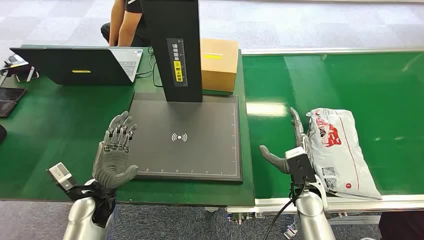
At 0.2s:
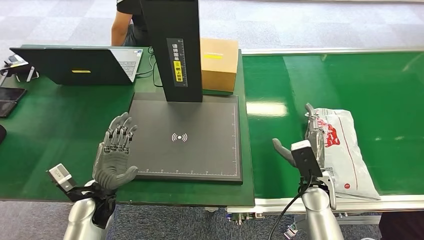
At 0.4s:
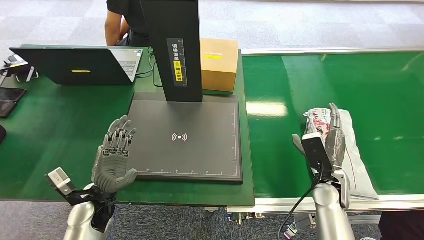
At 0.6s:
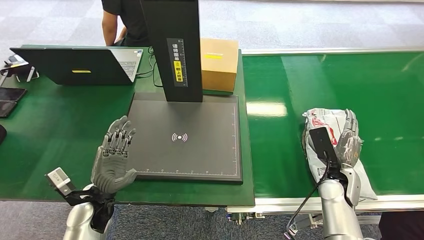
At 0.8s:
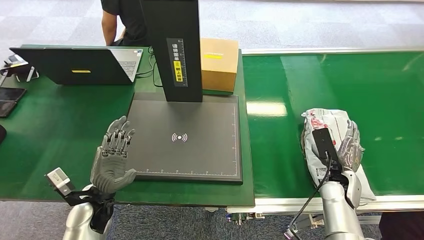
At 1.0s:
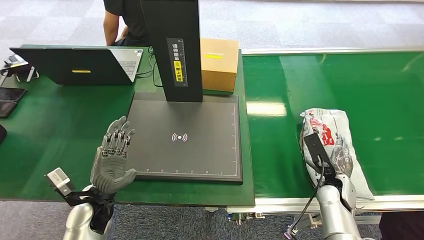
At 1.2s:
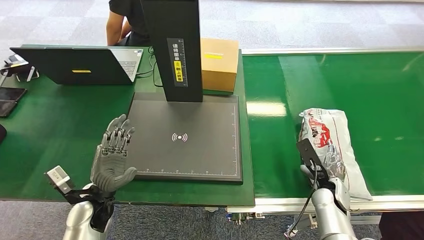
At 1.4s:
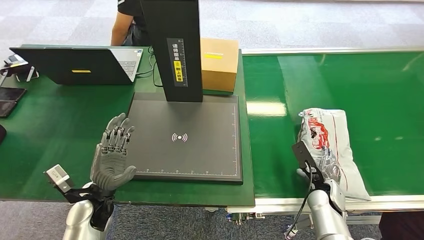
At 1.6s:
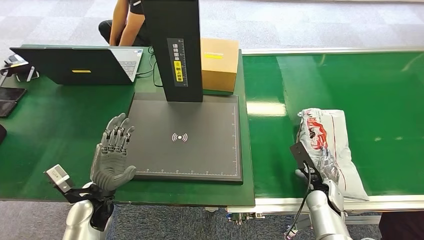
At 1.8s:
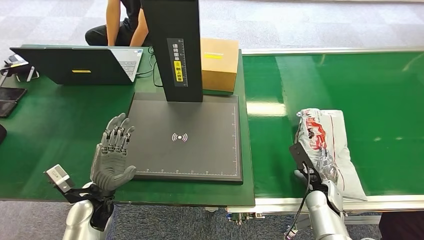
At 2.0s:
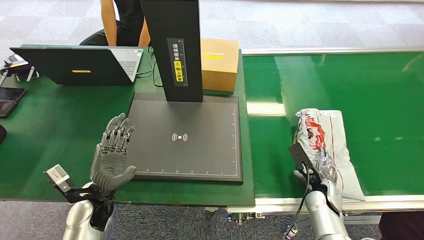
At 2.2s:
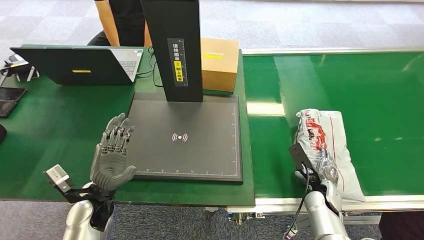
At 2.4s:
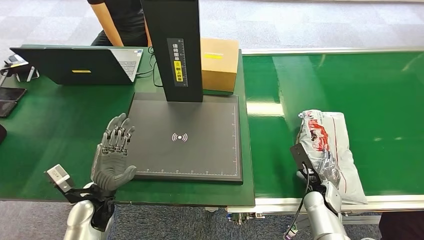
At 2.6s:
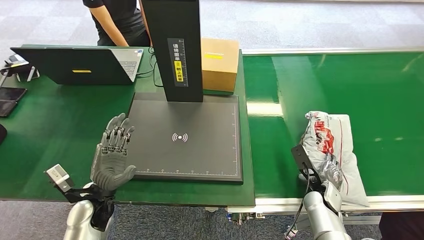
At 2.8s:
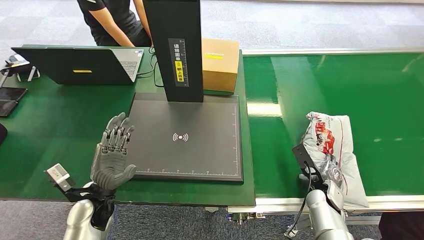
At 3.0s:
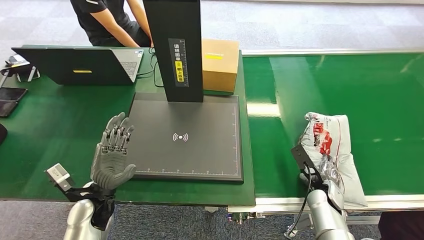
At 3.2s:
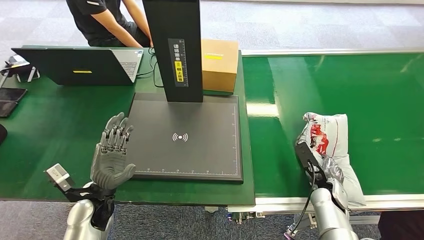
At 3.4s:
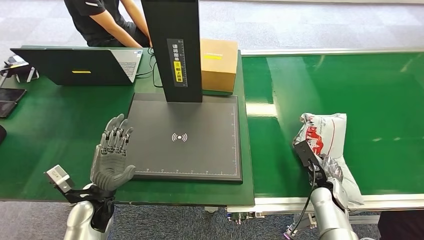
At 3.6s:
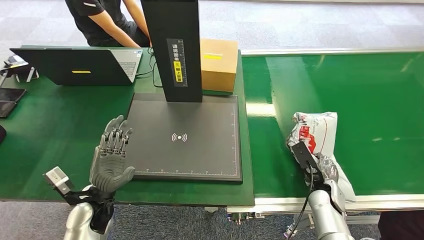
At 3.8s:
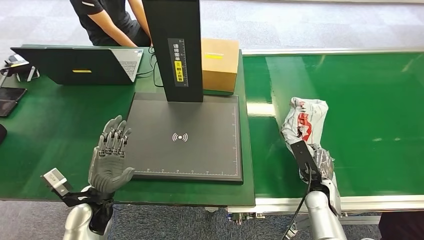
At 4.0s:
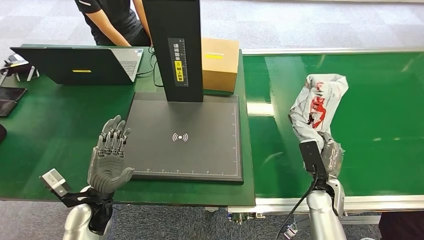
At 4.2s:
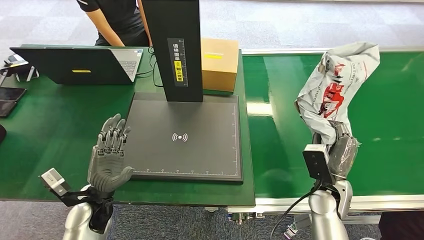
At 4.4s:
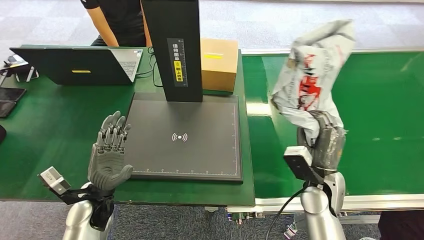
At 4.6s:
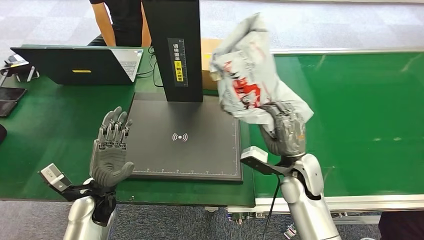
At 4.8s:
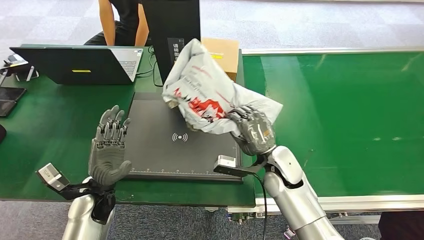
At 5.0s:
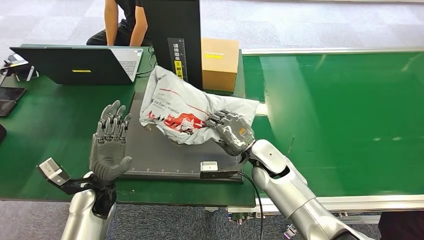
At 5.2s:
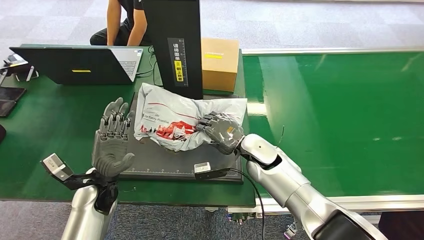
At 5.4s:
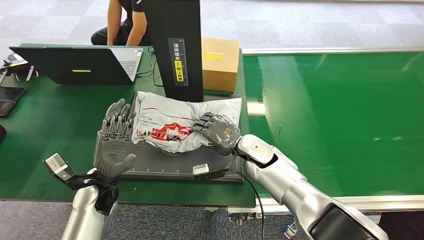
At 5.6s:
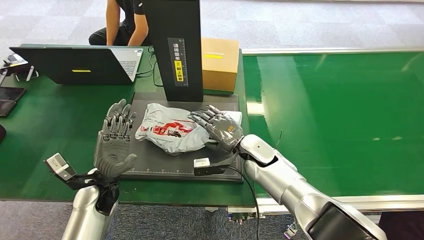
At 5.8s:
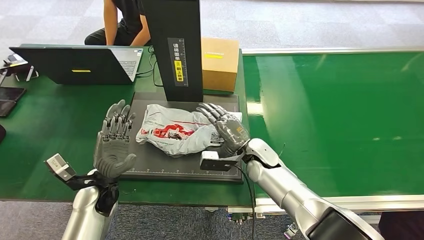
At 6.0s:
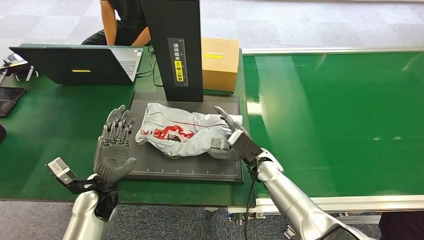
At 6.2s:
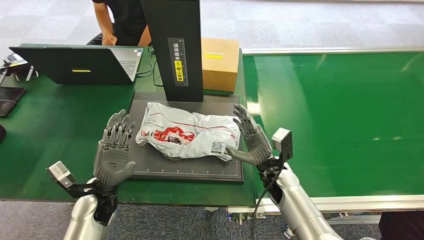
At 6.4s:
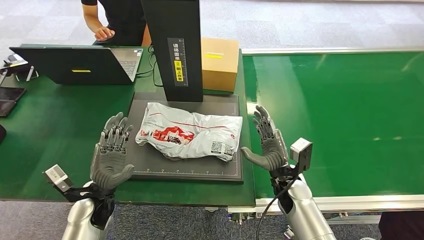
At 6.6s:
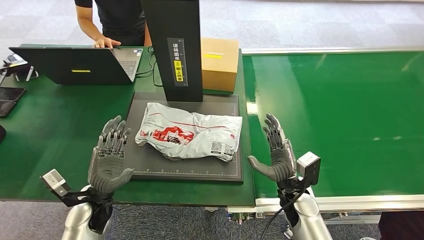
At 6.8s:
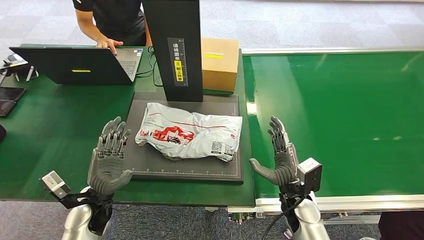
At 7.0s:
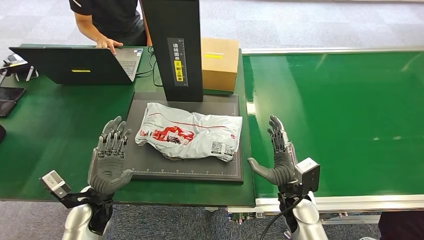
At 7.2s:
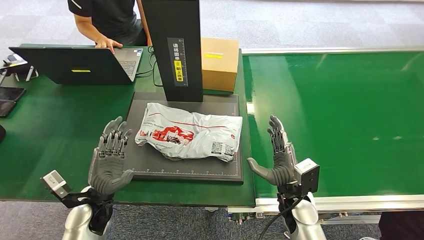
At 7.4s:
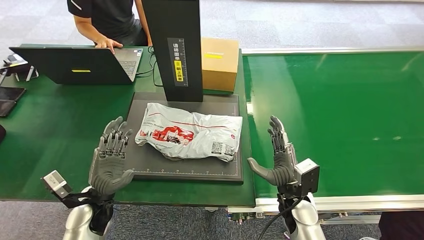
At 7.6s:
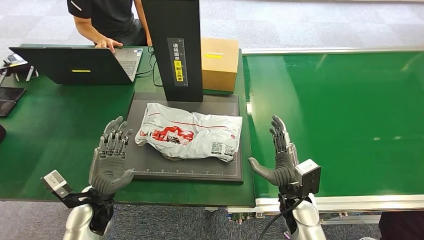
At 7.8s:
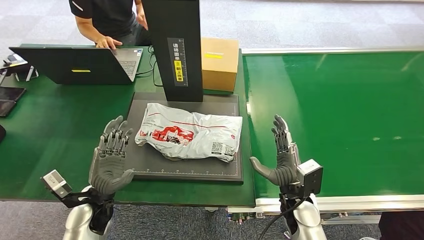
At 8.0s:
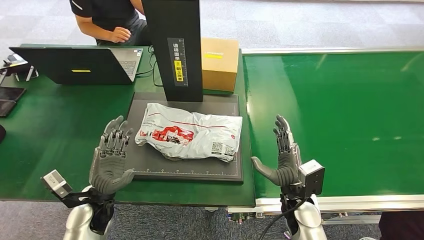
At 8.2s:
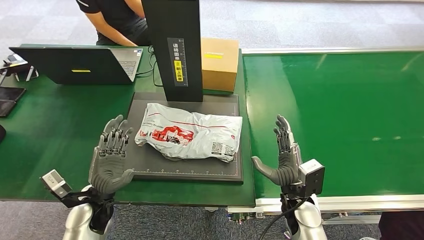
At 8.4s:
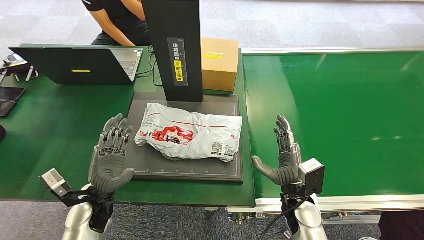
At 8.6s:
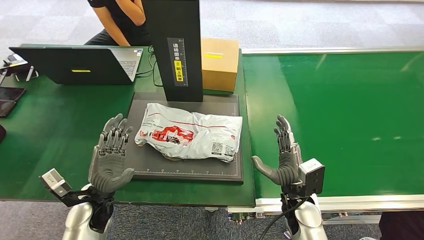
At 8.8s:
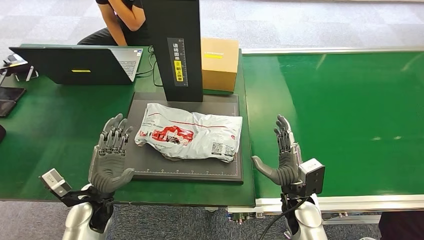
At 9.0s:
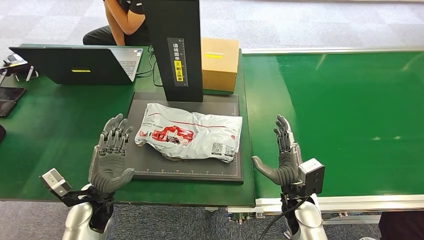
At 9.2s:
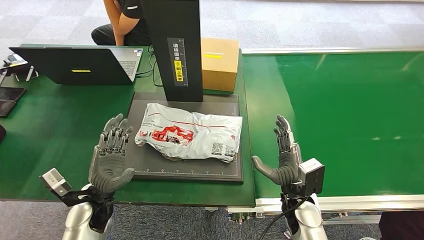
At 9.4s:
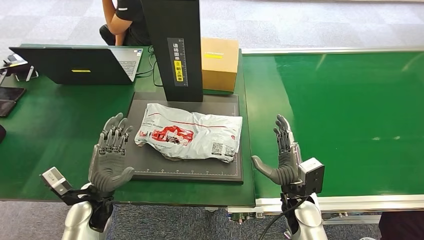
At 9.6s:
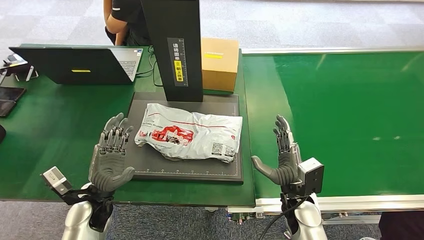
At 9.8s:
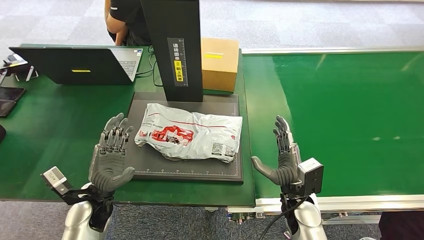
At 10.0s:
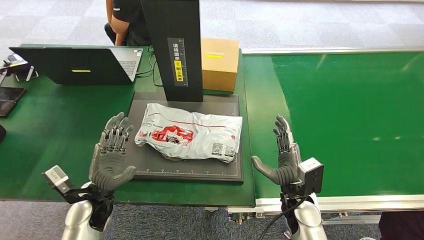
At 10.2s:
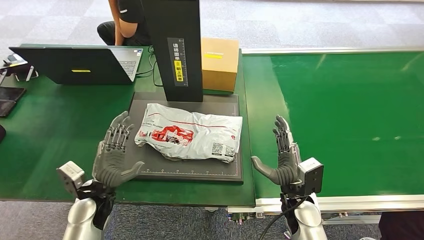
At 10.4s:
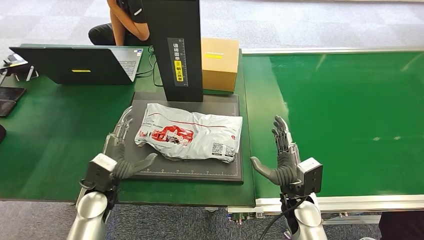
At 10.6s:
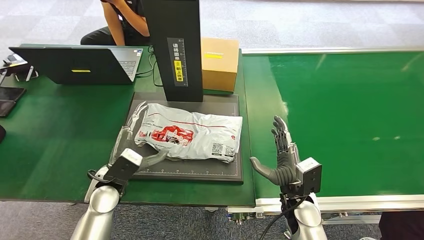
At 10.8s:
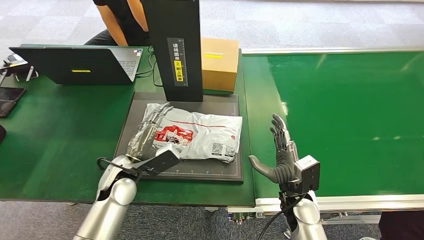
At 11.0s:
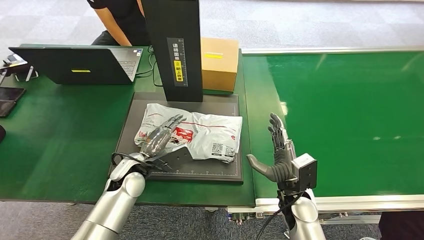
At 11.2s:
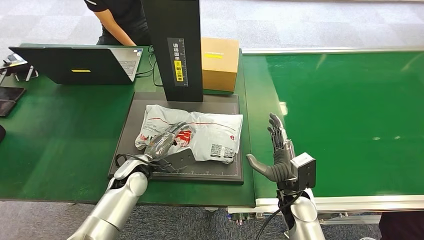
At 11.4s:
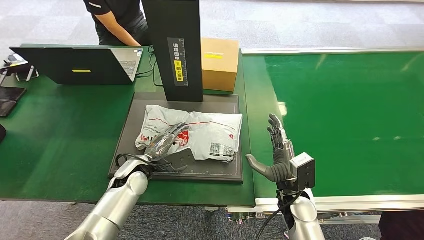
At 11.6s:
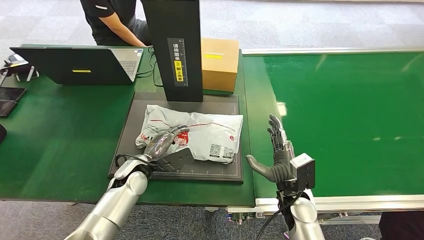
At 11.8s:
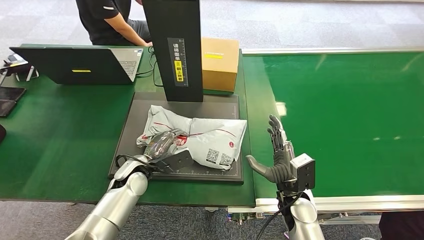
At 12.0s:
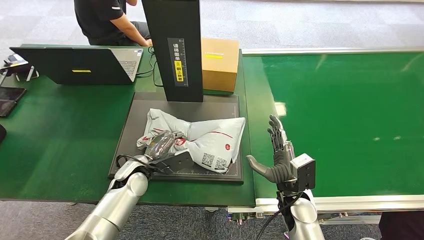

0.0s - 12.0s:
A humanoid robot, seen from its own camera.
Step, 0.0s - 4.2s: Pick up the package from the conveyor belt.
Step, 4.4s - 6.6s: Place the package onto the inbound machine.
1.6s - 3.0s: There are only small adjustments of the hands.
3.0s - 4.4s: The right hand shifts roughly 15 cm upward and to the left.
6.0s - 7.6s: The right hand heads backward and to the right, covering roughly 10 cm.
7.6s - 9.0s: Neither hand changes place.
10.4s - 12.0s: The left hand travels to the right and forward by about 10 cm.

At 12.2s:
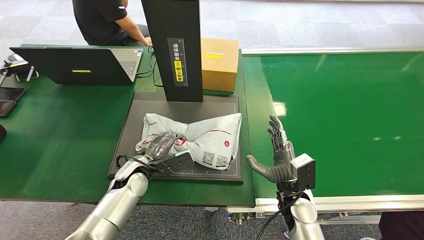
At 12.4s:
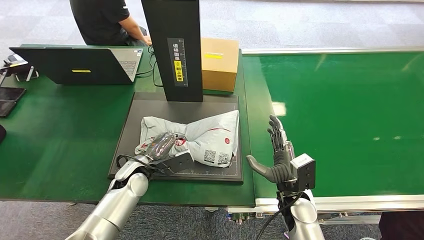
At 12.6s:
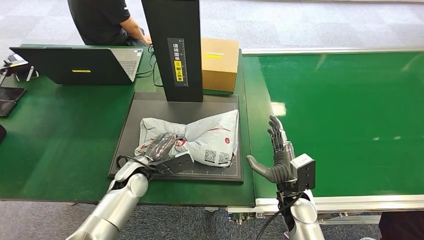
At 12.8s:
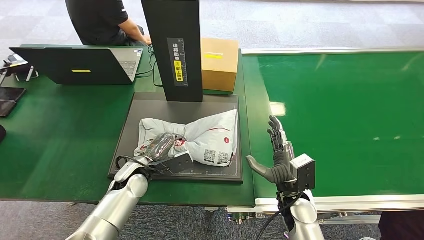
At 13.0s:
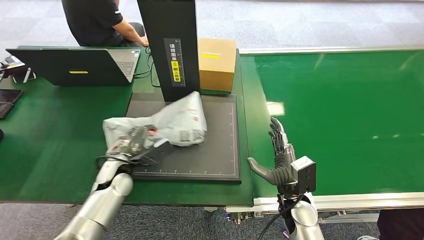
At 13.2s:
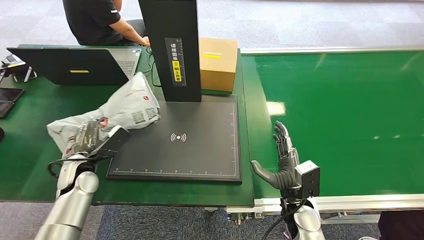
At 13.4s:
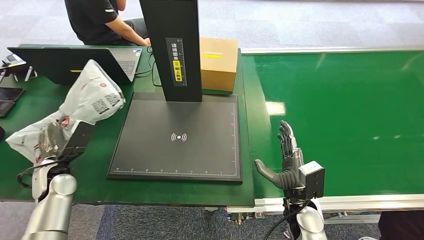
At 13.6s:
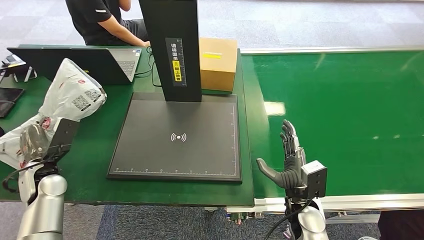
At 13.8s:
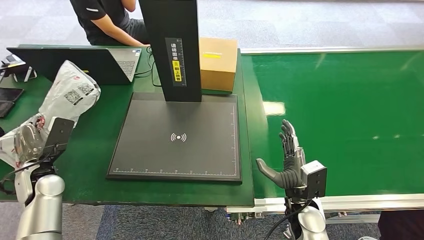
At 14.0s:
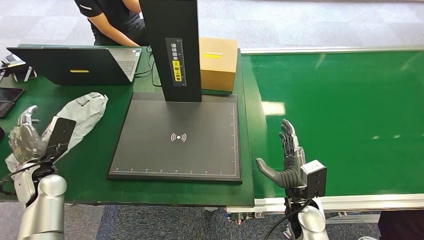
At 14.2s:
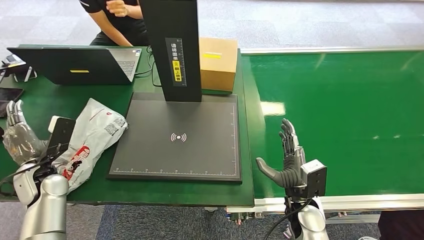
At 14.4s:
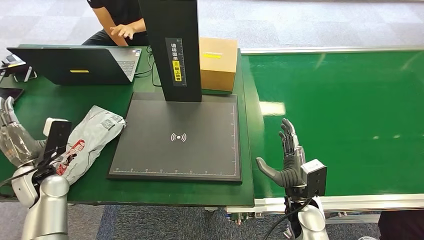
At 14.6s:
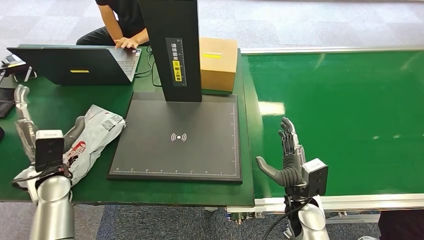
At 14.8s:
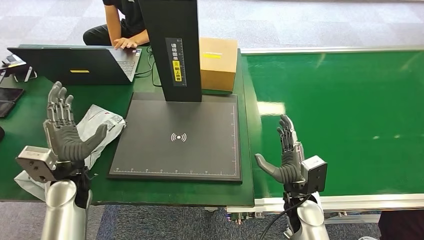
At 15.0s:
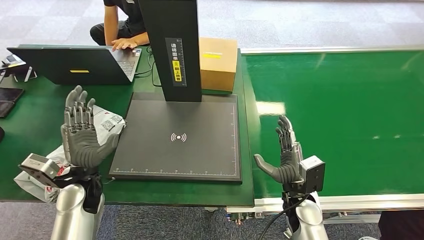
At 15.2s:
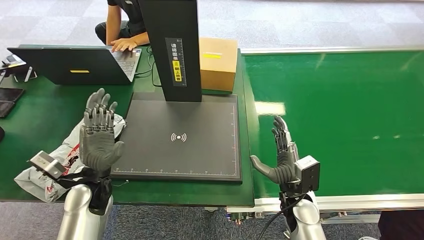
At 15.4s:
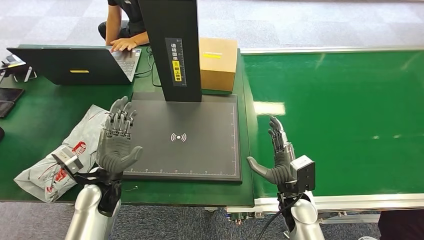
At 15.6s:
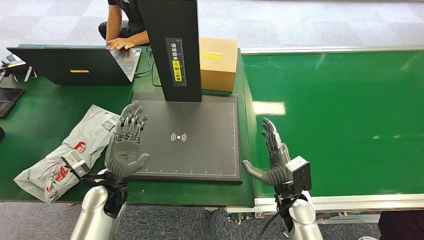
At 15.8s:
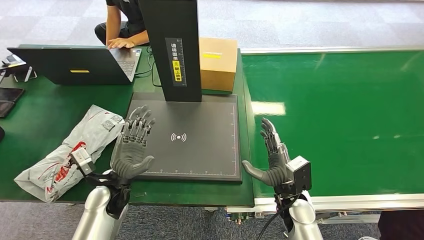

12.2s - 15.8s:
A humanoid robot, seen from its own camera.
Step, 13.4s - 15.8s: Place the package into the parcel locker.
14.0s - 15.8s: The left hand travels to the right by roughly 20 cm.

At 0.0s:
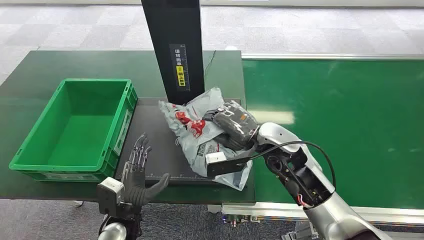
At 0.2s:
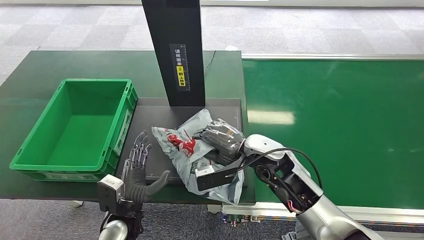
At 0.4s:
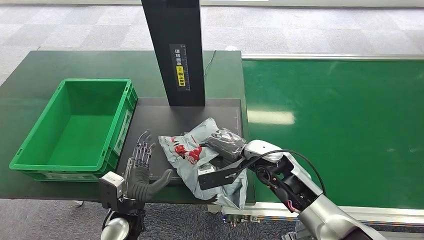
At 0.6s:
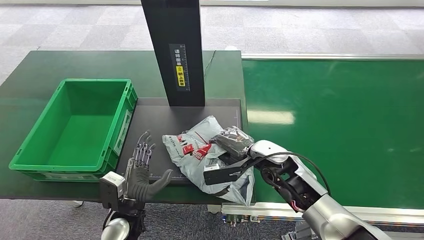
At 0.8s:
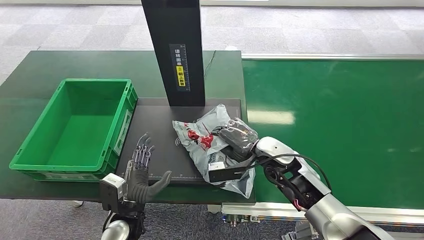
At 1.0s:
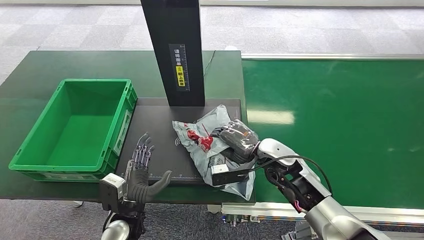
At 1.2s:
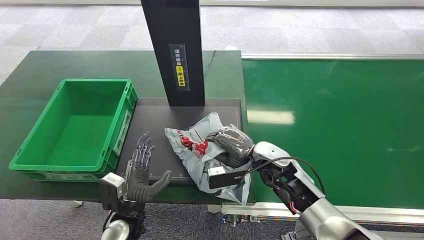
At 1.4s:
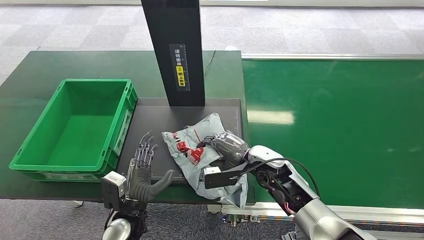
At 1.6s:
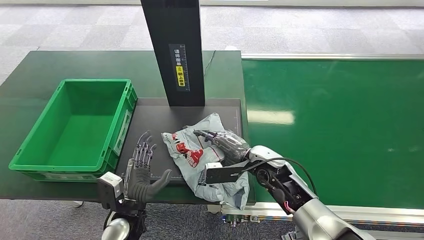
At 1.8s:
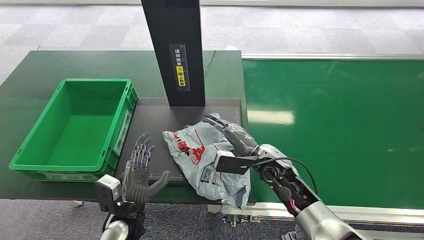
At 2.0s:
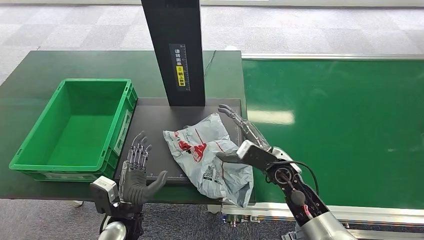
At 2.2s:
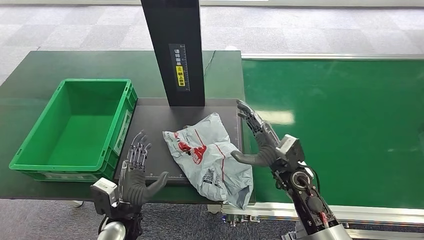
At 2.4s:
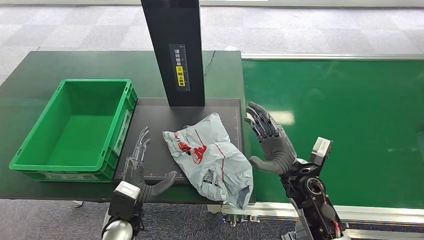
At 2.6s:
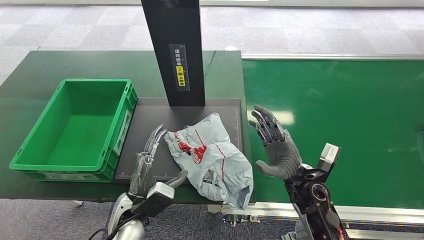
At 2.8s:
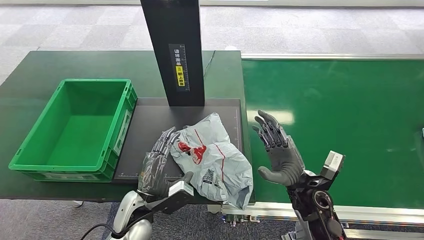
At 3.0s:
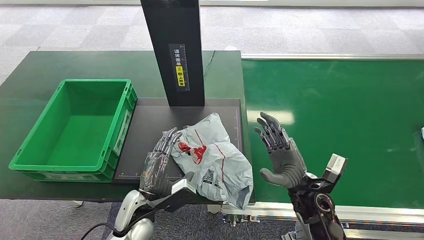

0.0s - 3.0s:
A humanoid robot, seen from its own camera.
Step, 0.0s - 0.2s: Pick up the package from the conveyor belt.
1.6s - 3.0s: The right hand travels backward and to the right by approximately 10 cm.
